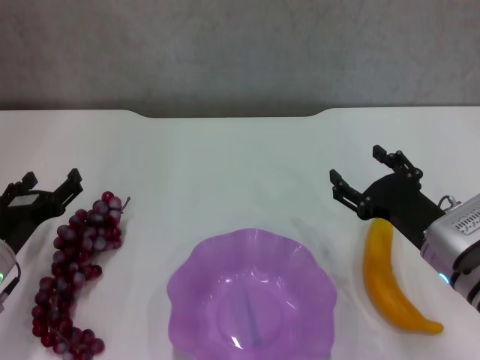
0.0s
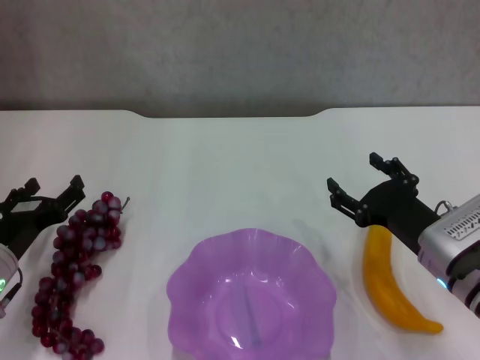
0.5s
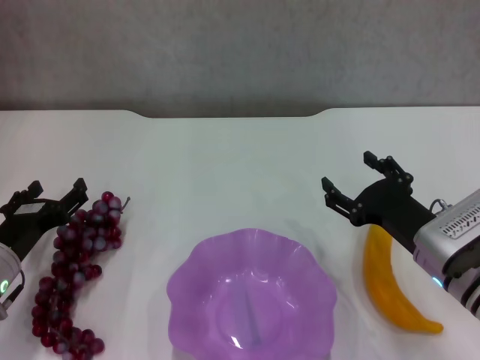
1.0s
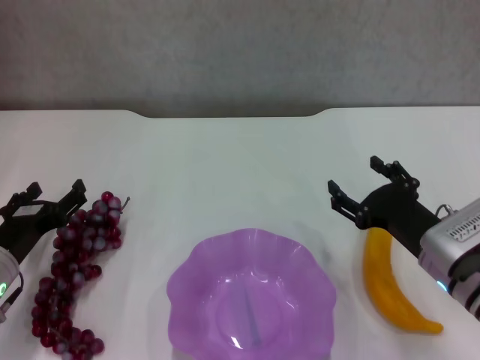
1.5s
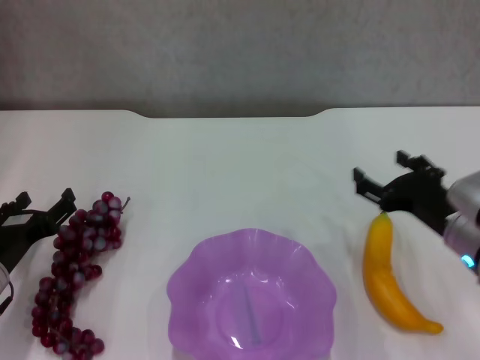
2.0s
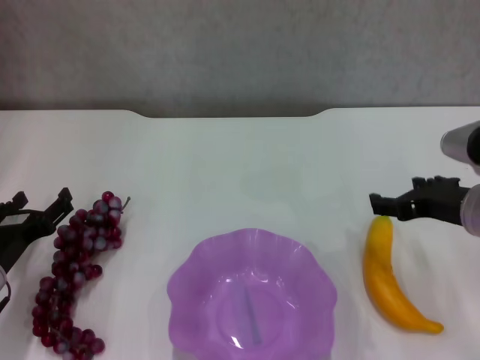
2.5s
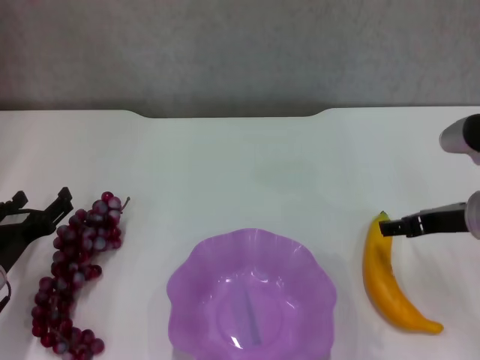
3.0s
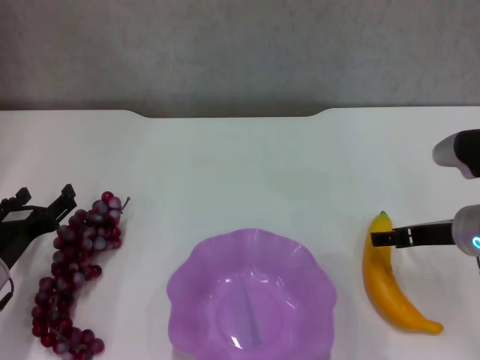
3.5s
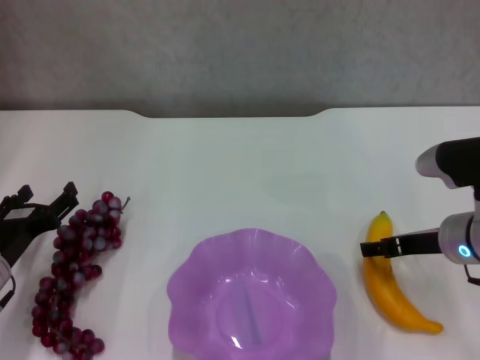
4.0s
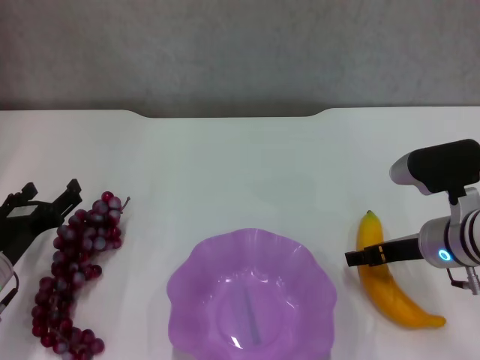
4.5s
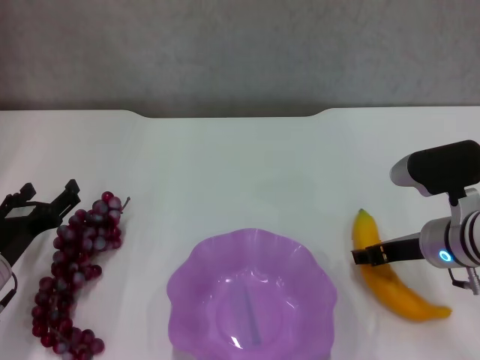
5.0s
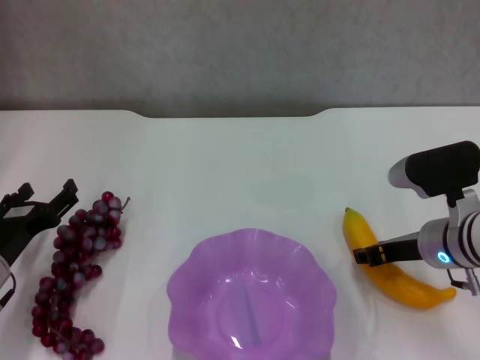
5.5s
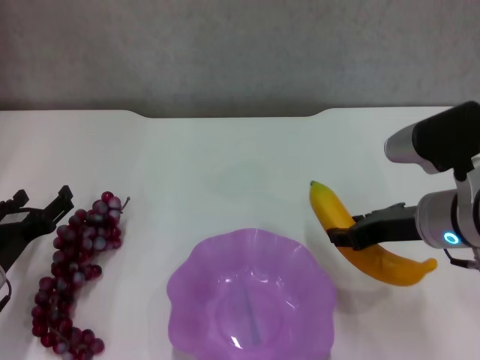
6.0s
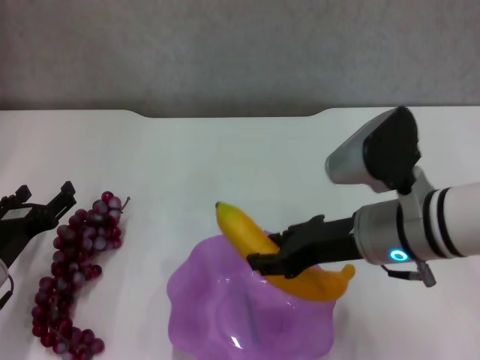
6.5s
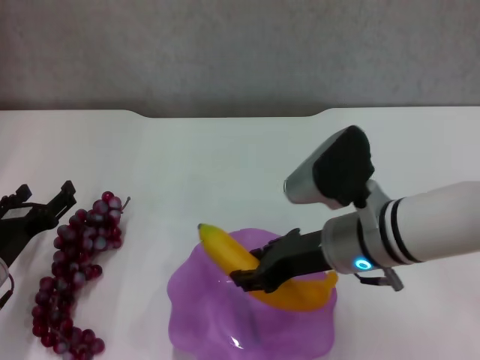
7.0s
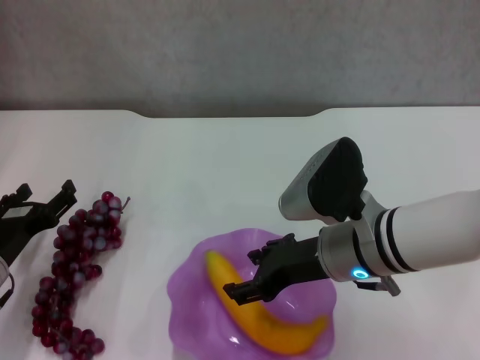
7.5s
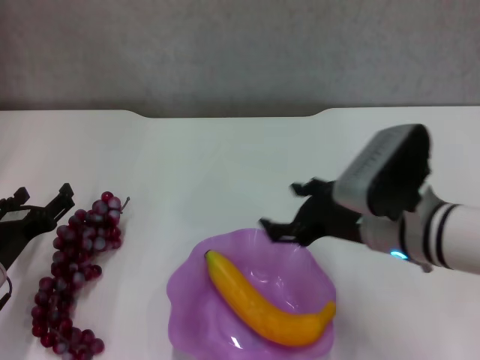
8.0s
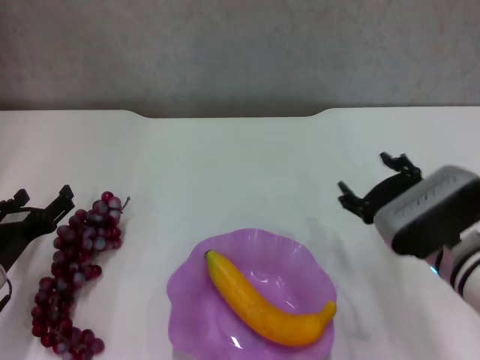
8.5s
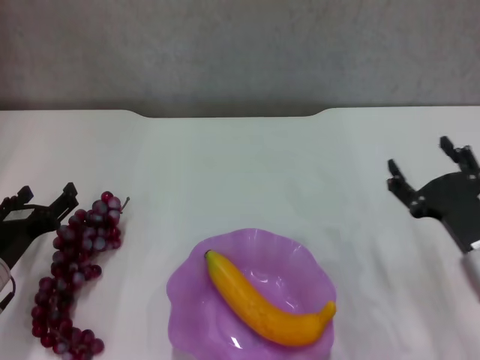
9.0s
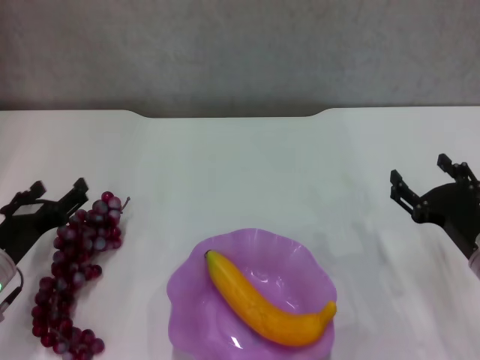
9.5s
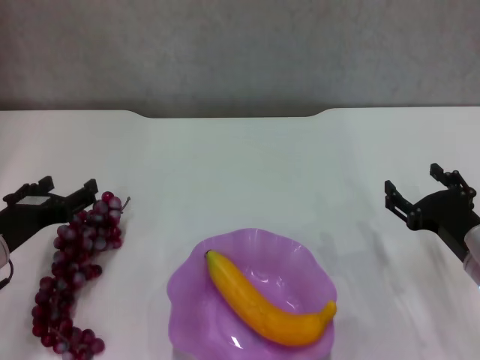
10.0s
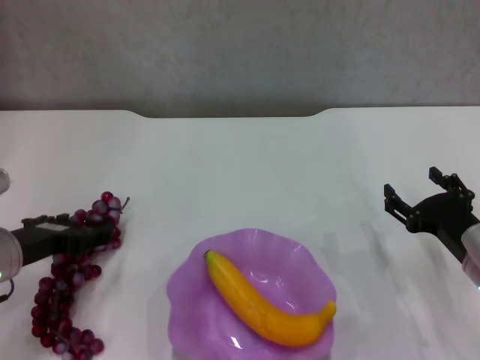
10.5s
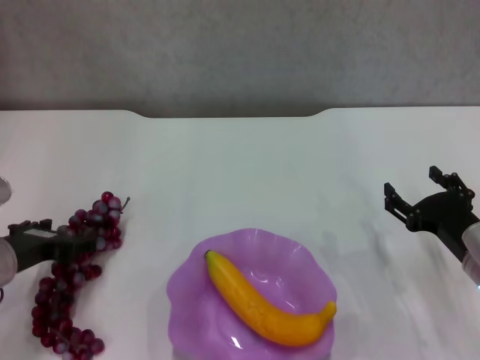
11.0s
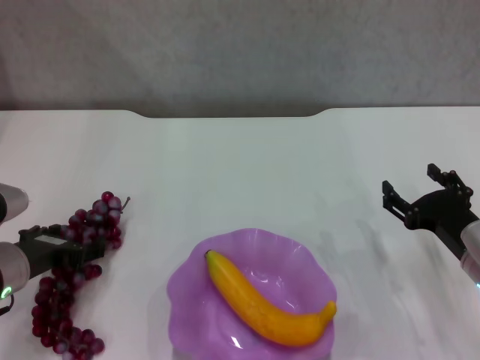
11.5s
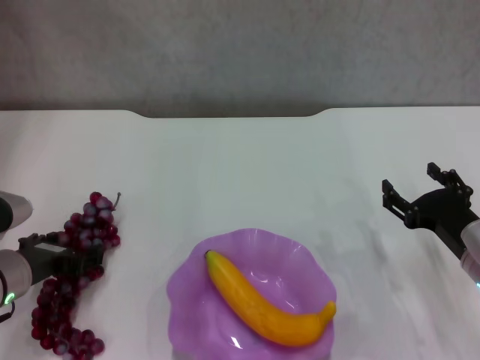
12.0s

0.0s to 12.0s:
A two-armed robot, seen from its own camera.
Step, 0.0s to 5.0s: Grasp the banana with right gripper.
Step, 5.5s to 7.5s: Place the banana in the purple plate with right gripper.
0.0s to 2.0s: The grippers stay close to where they were, moving slightly.
4.0s to 6.0s: The right gripper shifts some 5 cm upward, and closes.
6.0s to 8.0s: The right gripper opens.
8.0s to 10.0s: The right gripper goes approximately 15 cm to the right and downward.

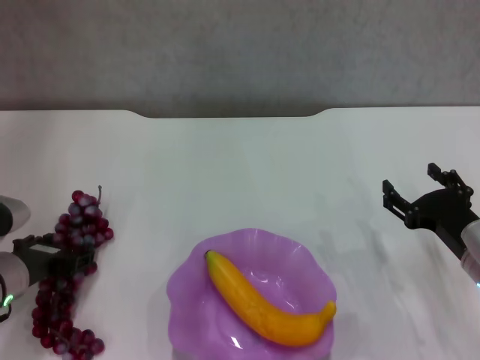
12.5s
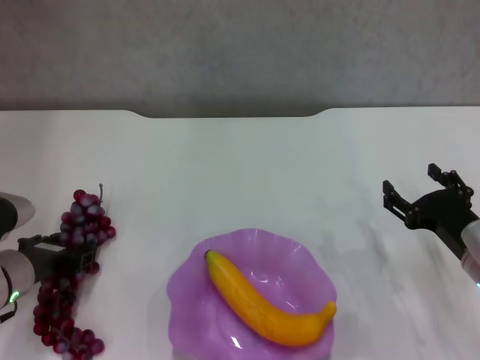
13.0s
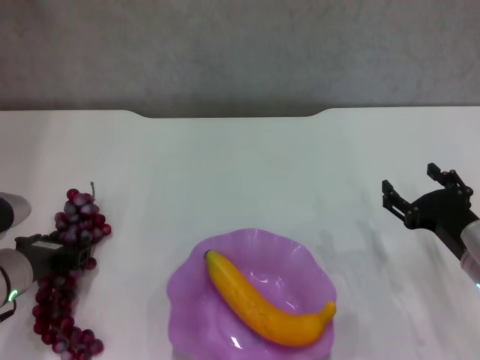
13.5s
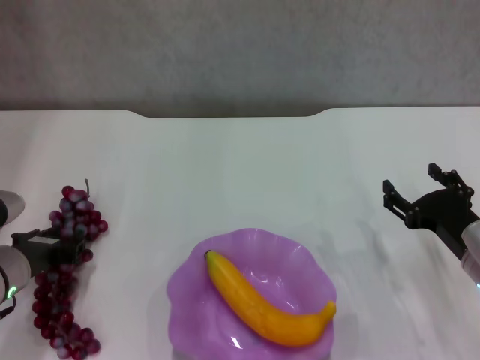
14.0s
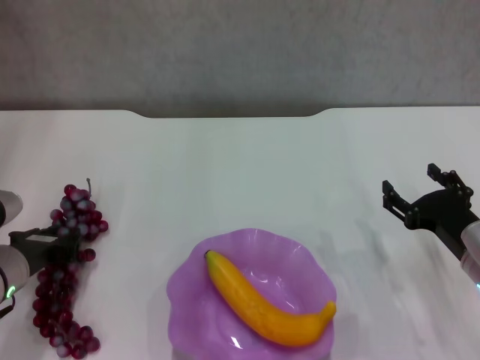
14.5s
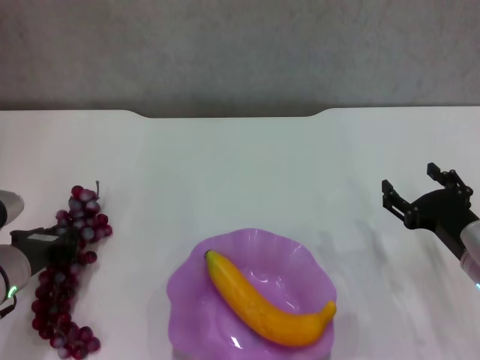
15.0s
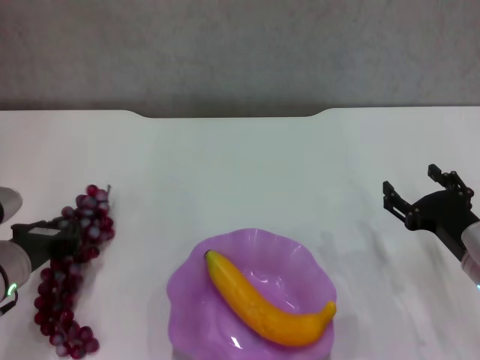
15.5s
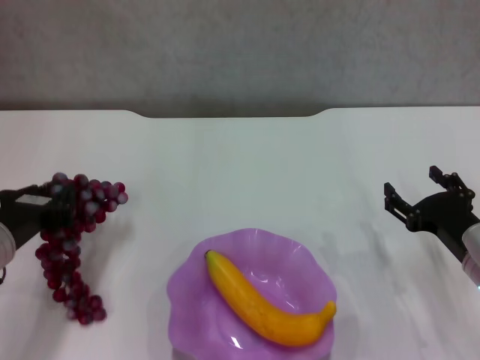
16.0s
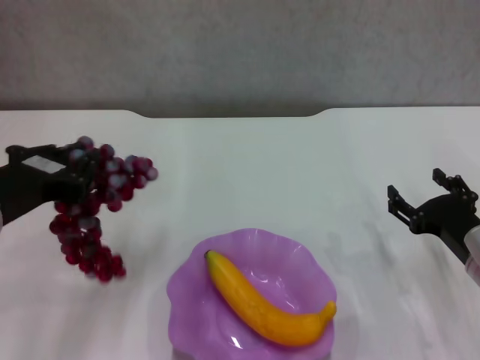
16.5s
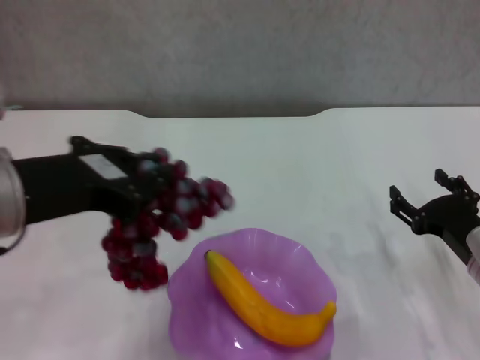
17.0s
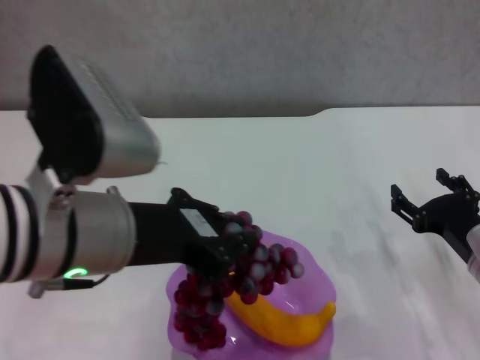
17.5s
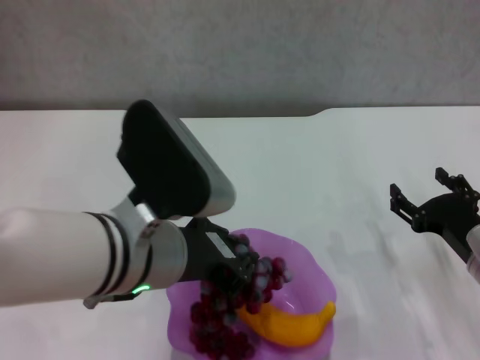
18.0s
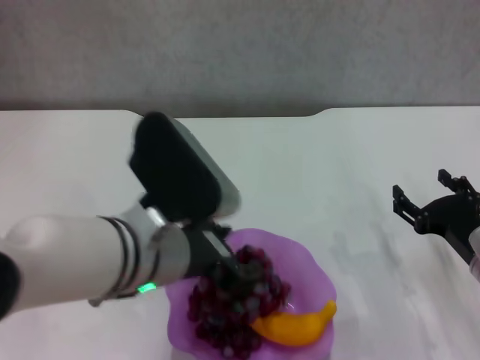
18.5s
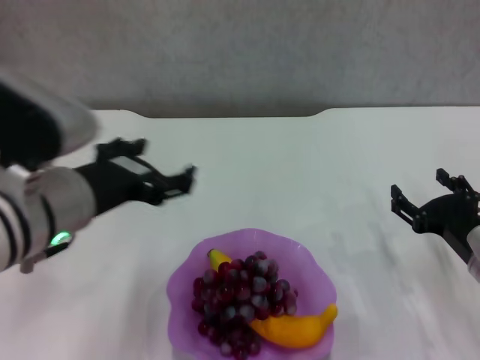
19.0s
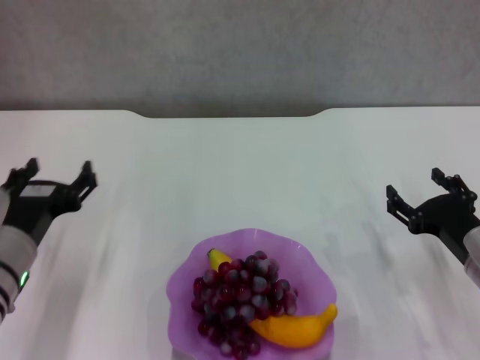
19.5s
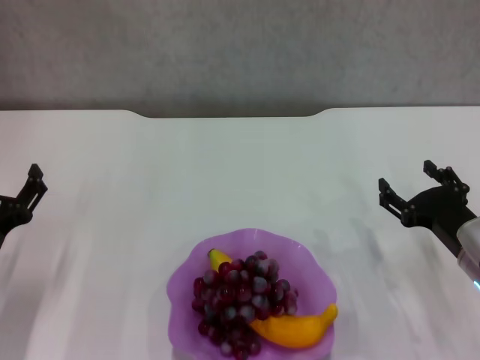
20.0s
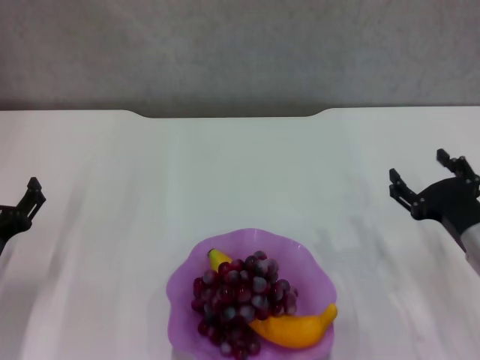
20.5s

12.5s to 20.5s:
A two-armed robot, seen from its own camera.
Step, 13.0s to 18.5s: Place the grape in the purple plate with left gripper.
12.5s to 14.5s: The left gripper closes up.
14.5s to 16.5s: The left gripper heads upward, covering roughly 15 cm.
16.5s to 18.5s: The left gripper goes roughly 15 cm to the right, and opens its fingers.
18.5s to 20.5s: The left gripper is displaced to the left and downward by some 25 cm, and opens.

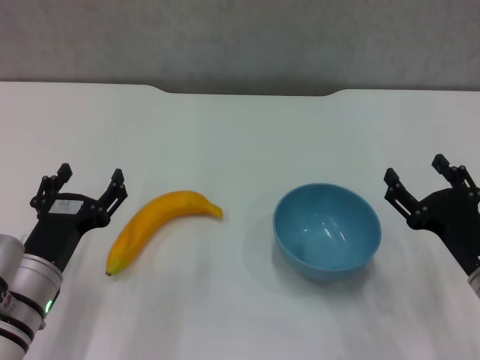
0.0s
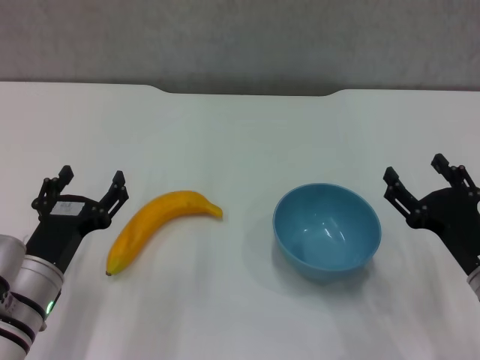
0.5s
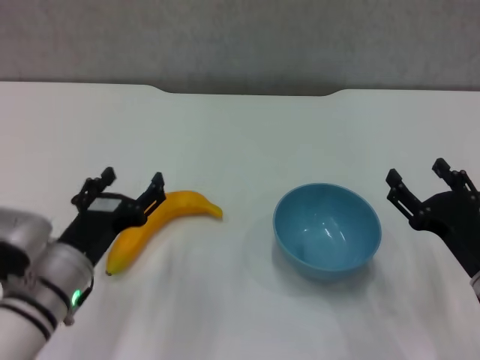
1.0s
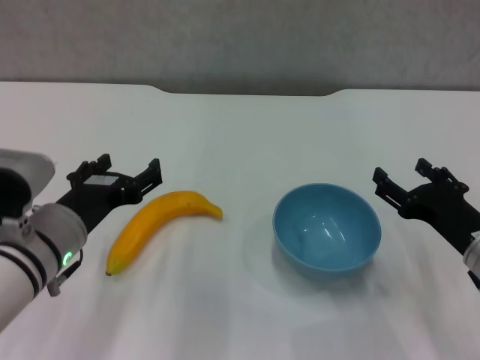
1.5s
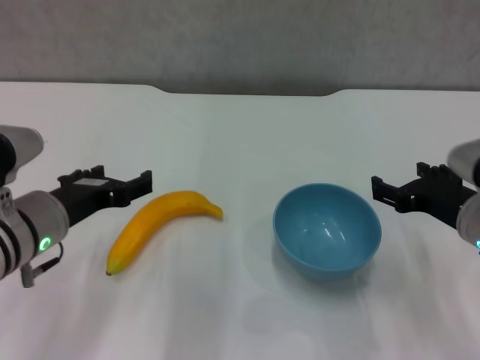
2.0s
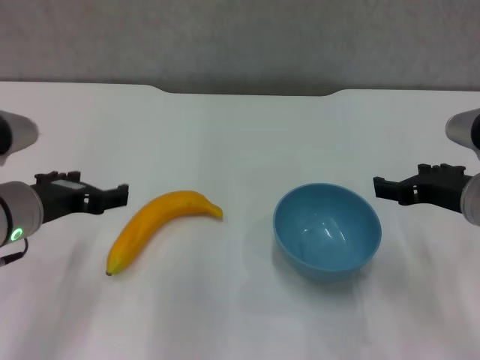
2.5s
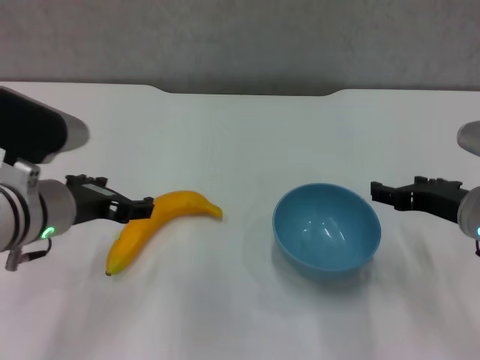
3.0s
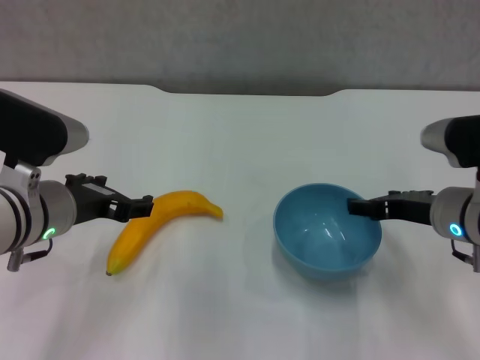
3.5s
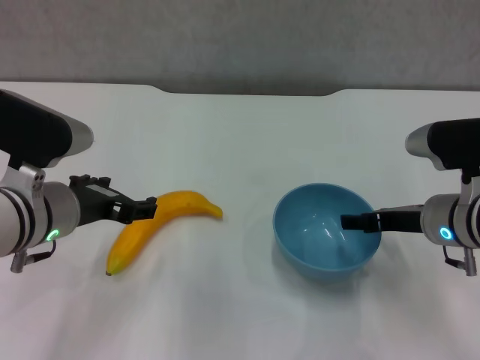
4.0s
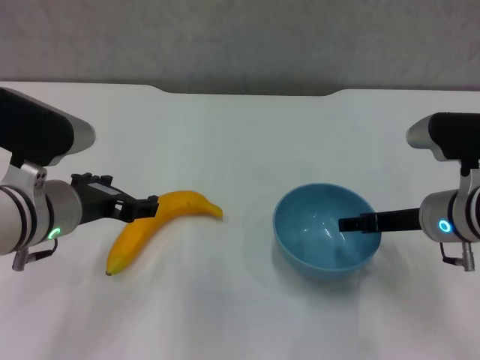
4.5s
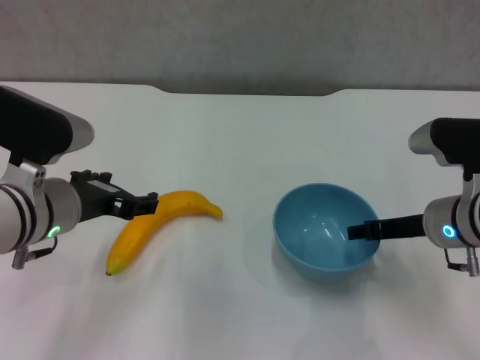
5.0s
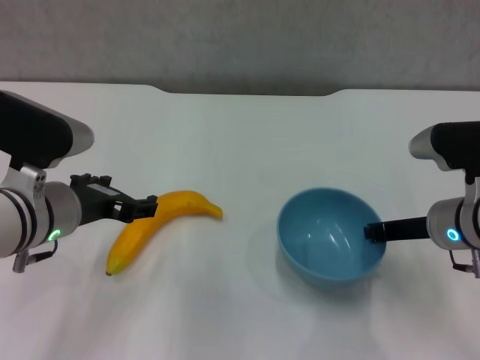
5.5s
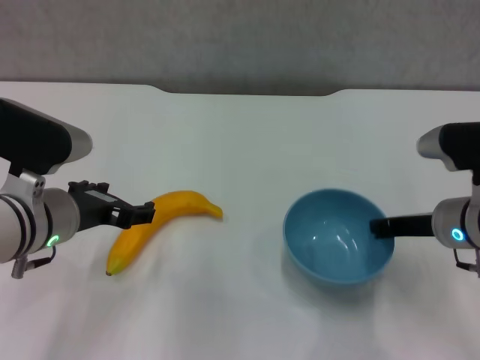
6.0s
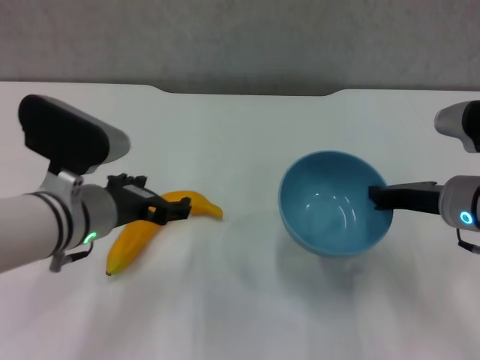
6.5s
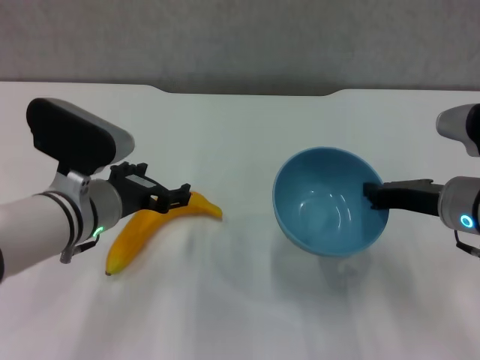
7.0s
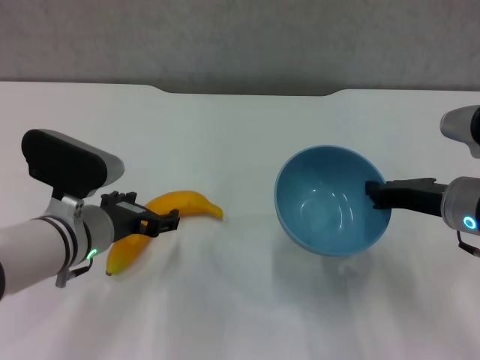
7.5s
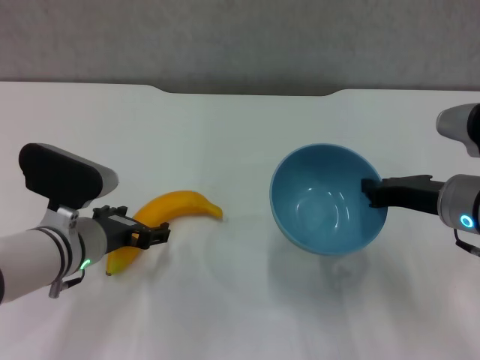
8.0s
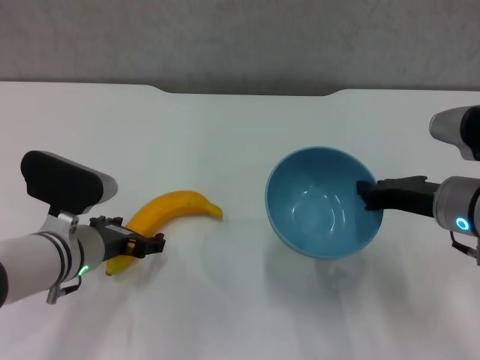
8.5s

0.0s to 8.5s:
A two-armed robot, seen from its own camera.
Step, 0.0s to 5.5s: Grasp the blue bowl with right gripper.
Step, 6.0s to 7.0s: Lift the blue bowl with right gripper.
0.0s to 2.0s: Both grippers travel together upward, approximately 10 cm.
4.0s to 6.5s: The right gripper closes its fingers.
6.5s to 8.5s: The left gripper moves downward, about 10 cm.
